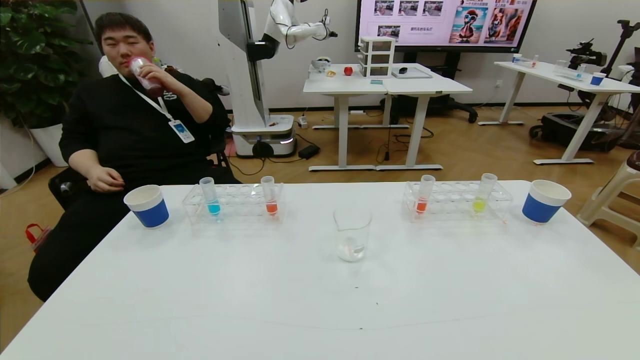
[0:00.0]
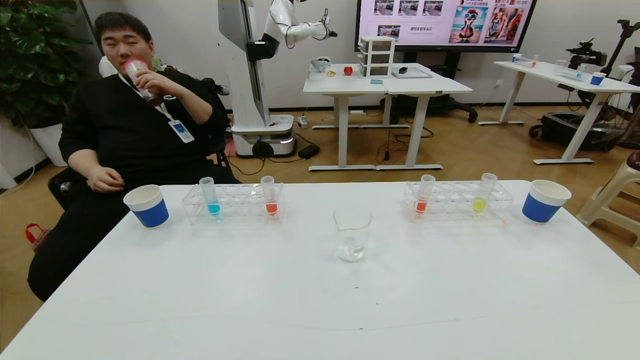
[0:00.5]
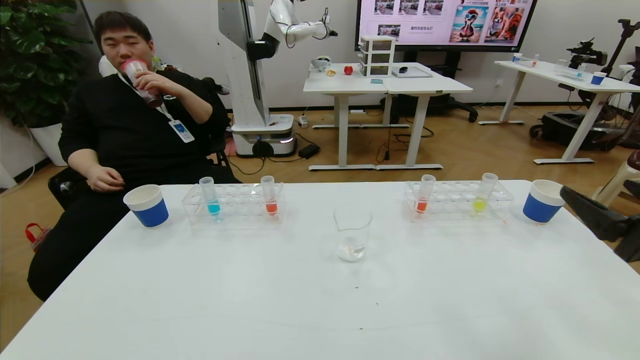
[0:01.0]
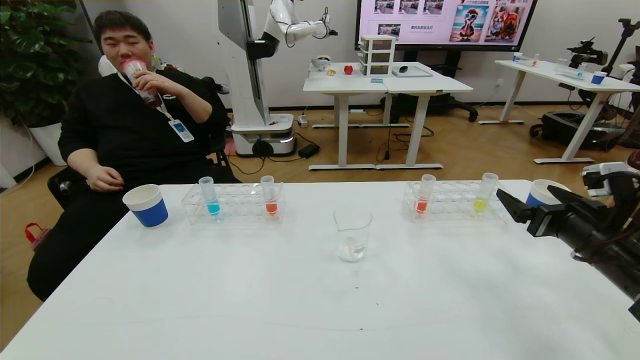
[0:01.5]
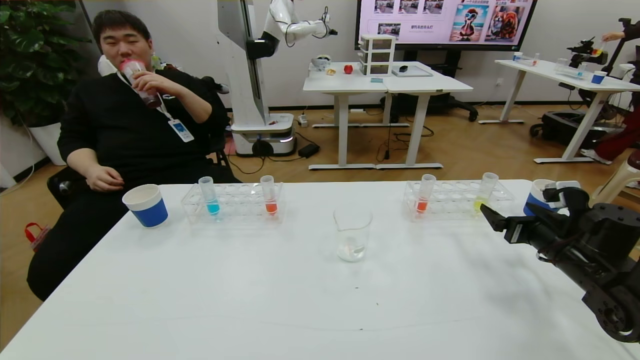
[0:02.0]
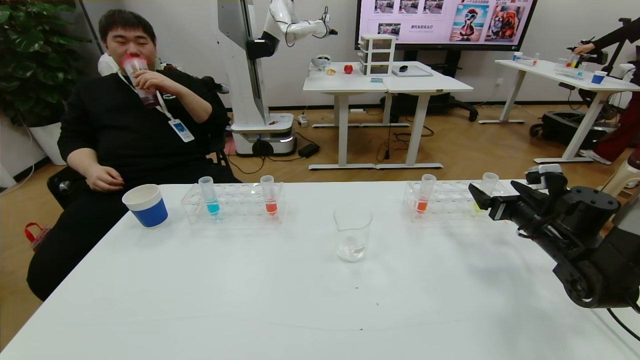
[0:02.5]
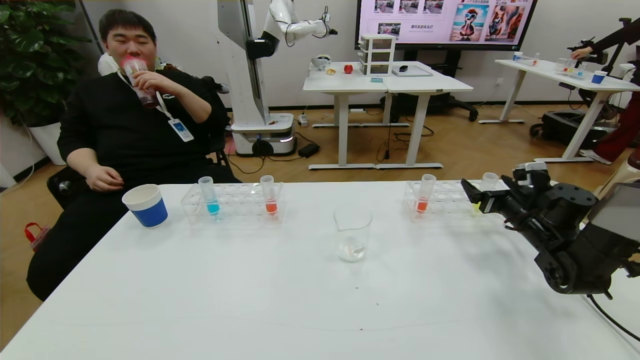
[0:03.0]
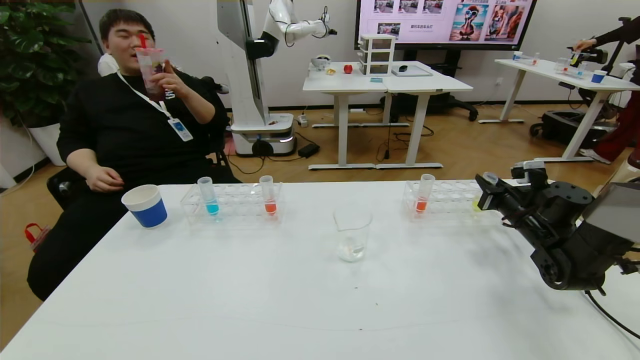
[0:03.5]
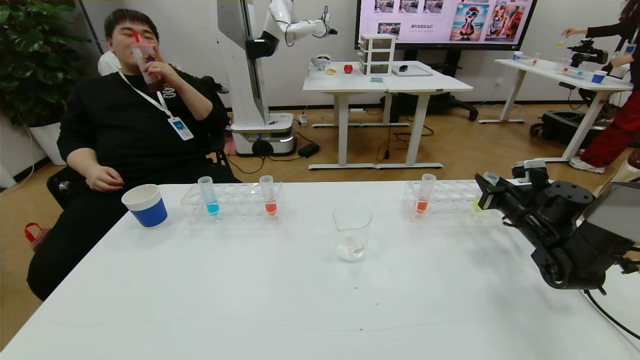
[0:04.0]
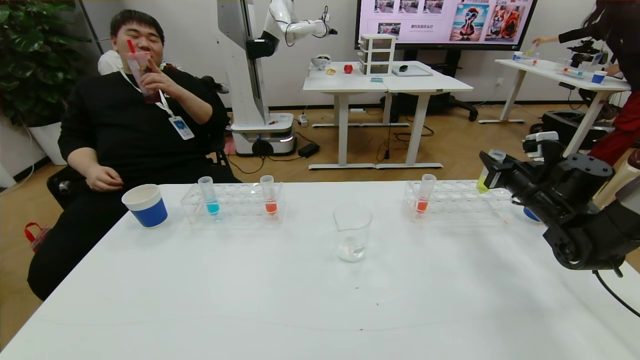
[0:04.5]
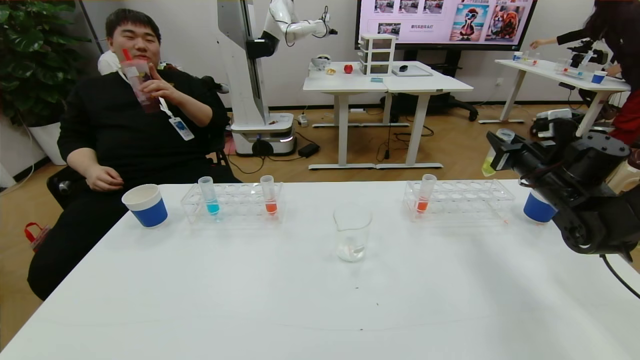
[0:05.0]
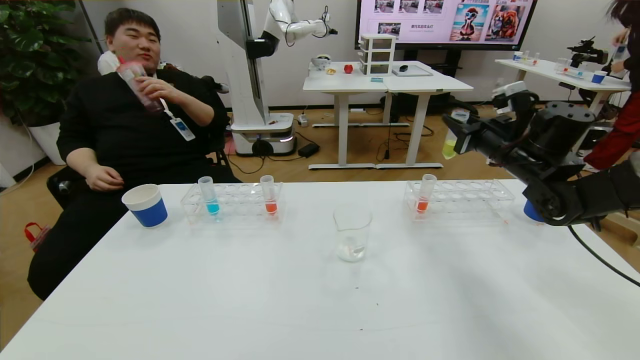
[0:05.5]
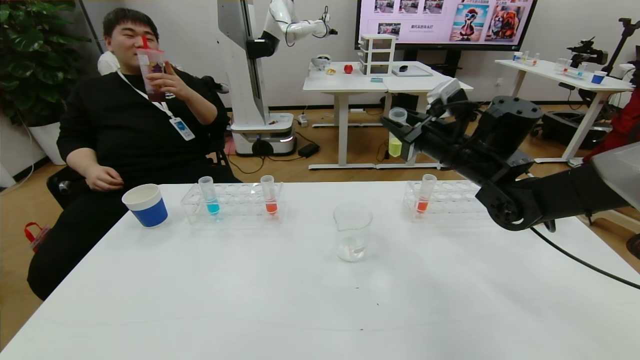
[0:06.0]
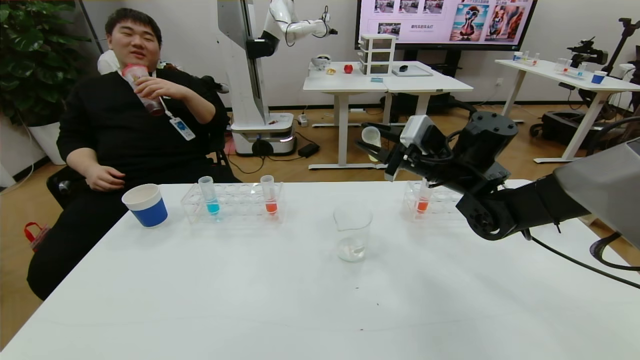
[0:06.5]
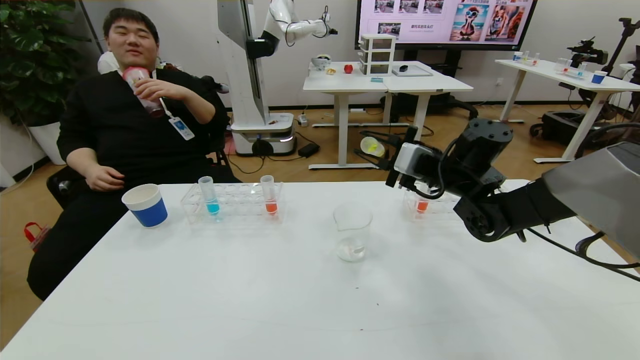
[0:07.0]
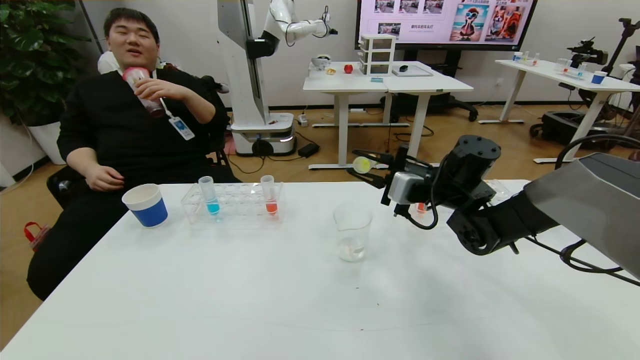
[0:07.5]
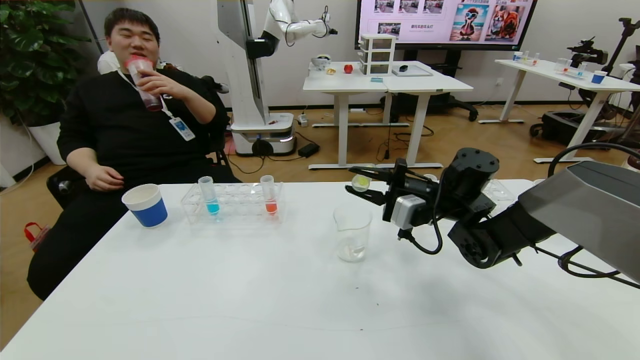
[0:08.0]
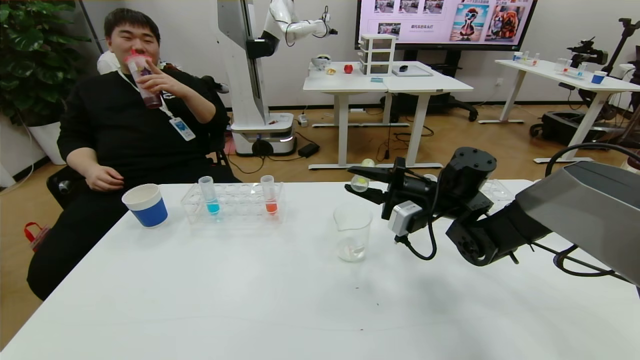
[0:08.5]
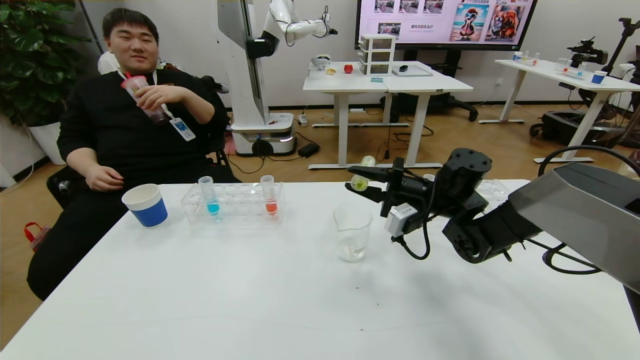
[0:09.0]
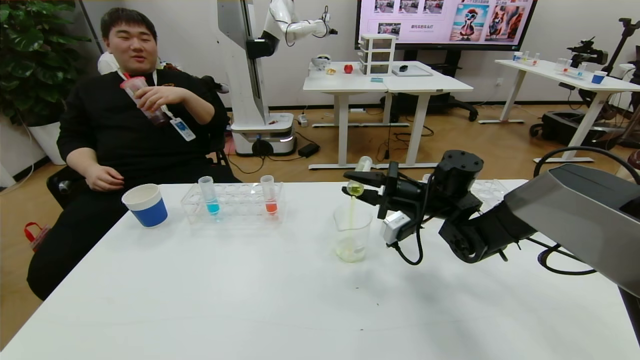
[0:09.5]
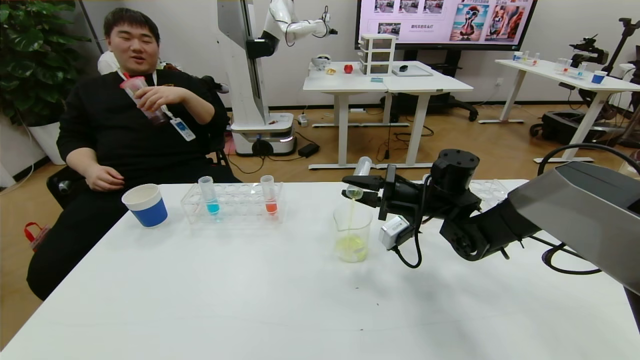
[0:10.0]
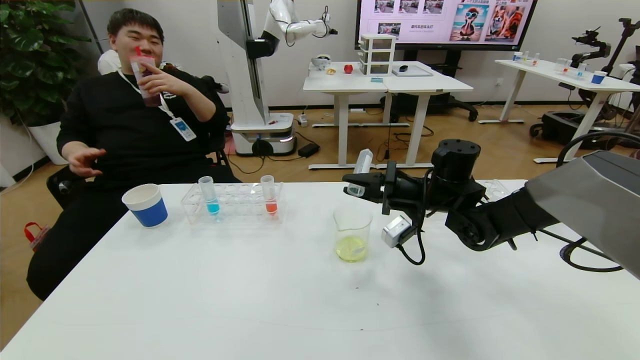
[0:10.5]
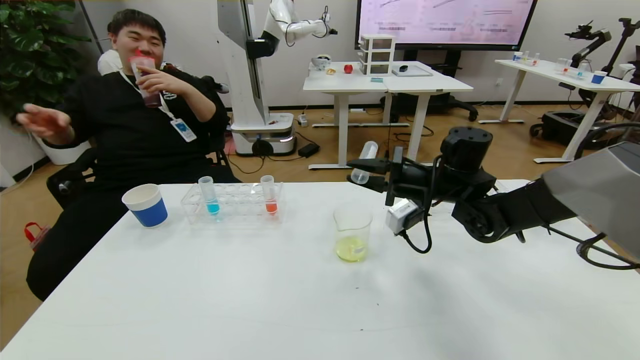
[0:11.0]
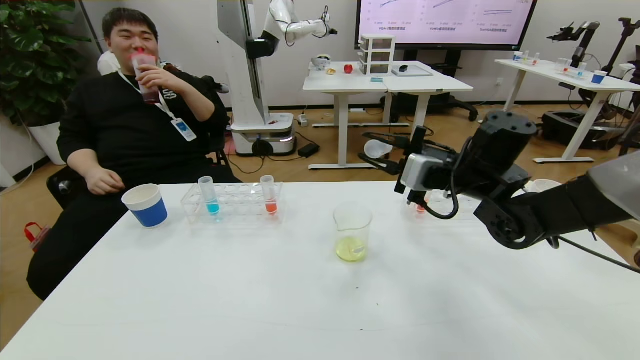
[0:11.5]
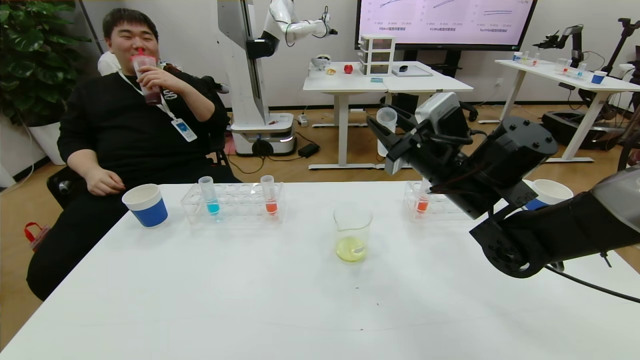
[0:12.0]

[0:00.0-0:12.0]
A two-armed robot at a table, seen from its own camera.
Task of the whole recording: pick up the test tube with yellow pigment and the test tube with blue pigment by grippers and pour them into the beaker.
0:00.0 to 0:02.0: The right gripper goes approximately 35 cm forward.
0:02.0 to 0:04.0: The right gripper heads forward, covering approximately 10 cm, and closes its fingers.
0:04.0 to 0:06.0: The right gripper moves to the left and upward, roughly 25 cm.
0:06.0 to 0:08.0: The right gripper heads downward, covering approximately 10 cm.
0:10.0 to 0:12.0: The right gripper is displaced upward and backward by approximately 10 cm.

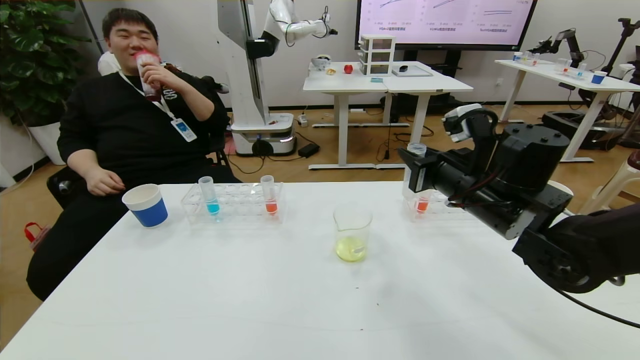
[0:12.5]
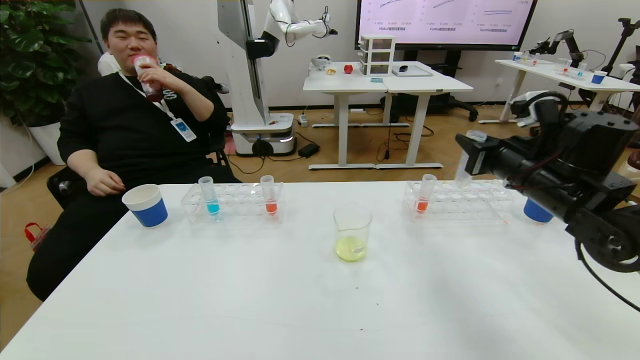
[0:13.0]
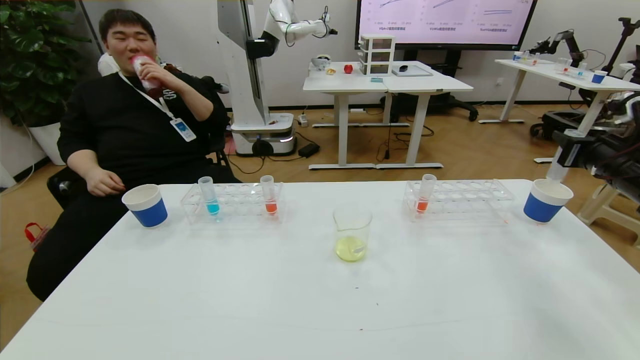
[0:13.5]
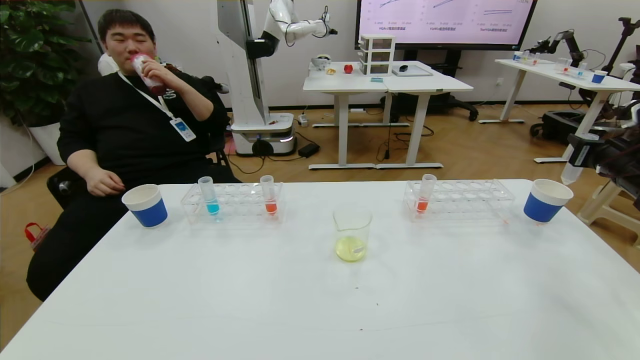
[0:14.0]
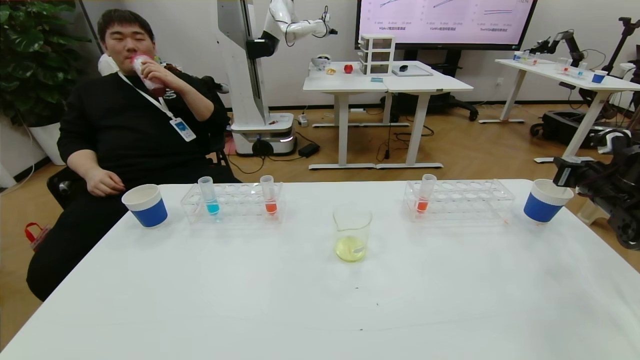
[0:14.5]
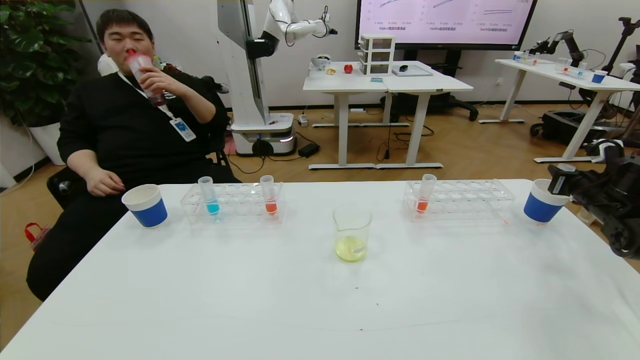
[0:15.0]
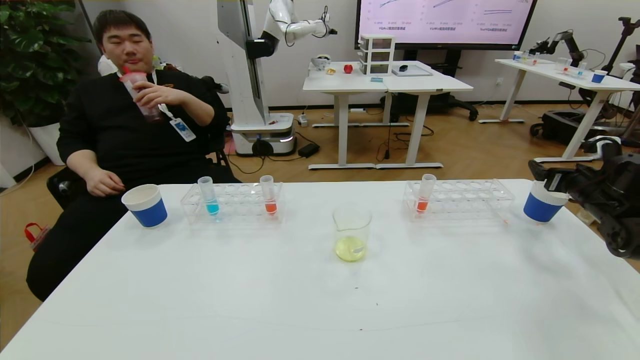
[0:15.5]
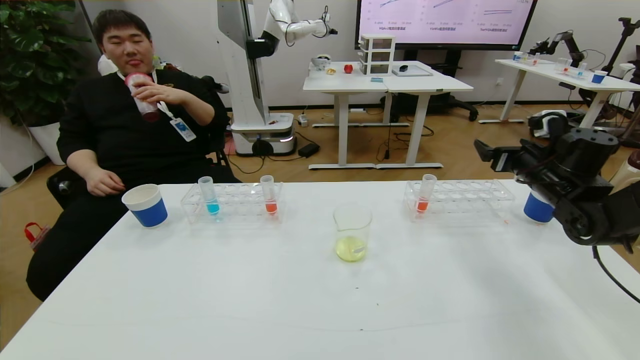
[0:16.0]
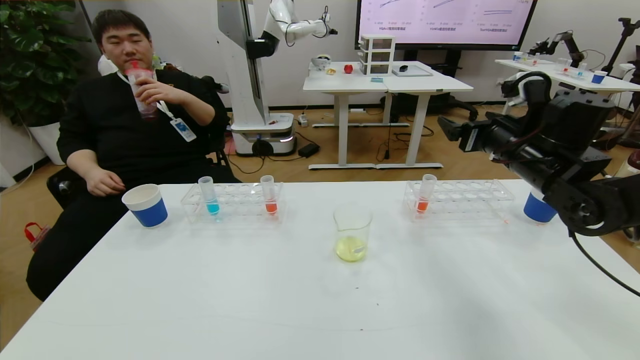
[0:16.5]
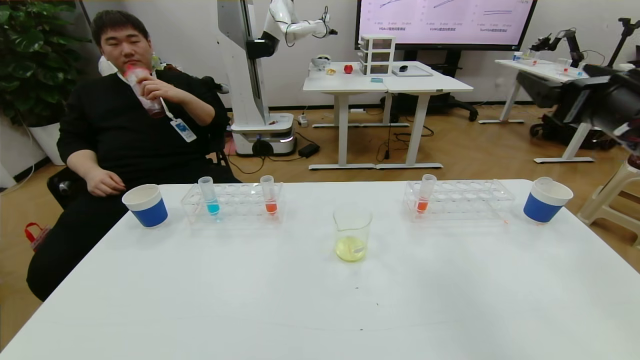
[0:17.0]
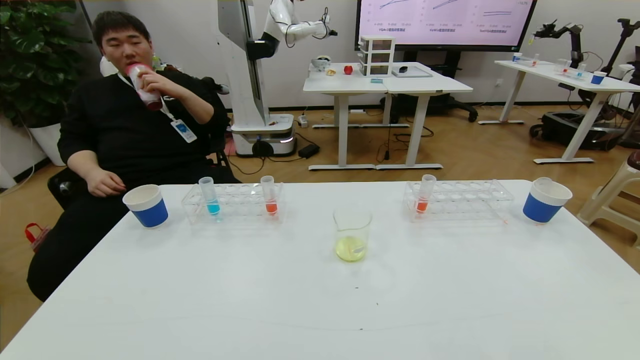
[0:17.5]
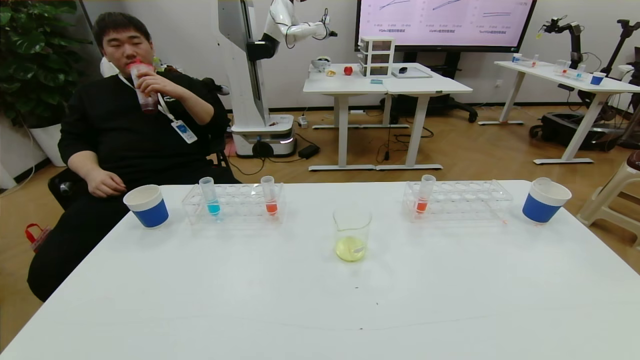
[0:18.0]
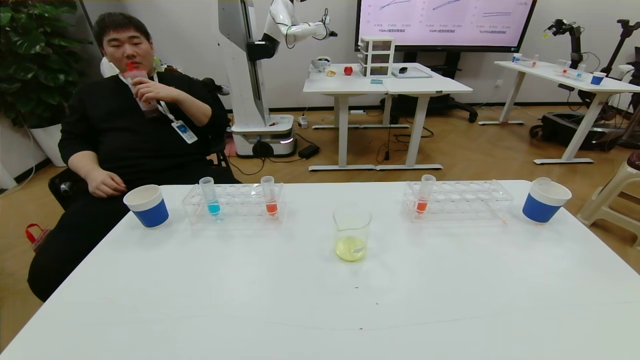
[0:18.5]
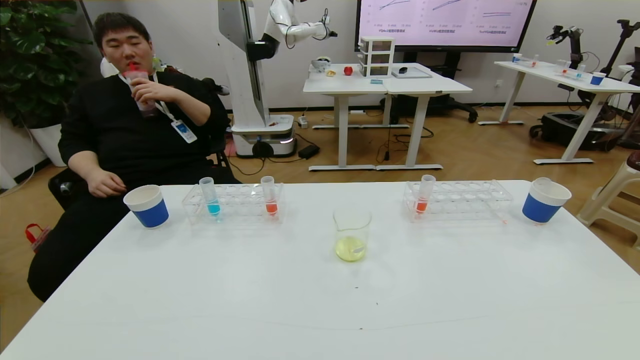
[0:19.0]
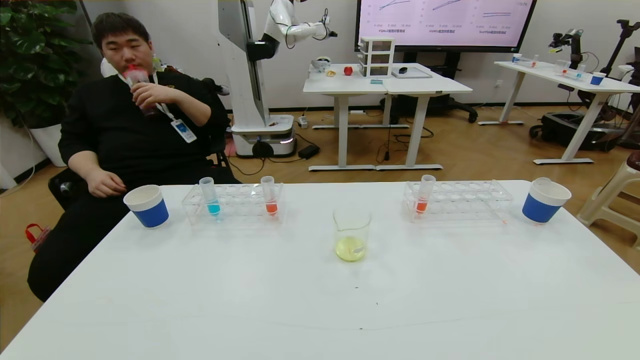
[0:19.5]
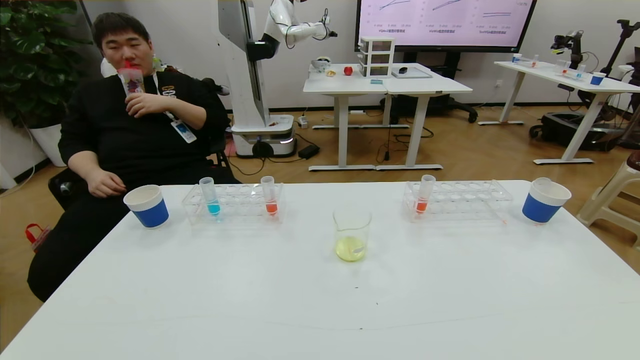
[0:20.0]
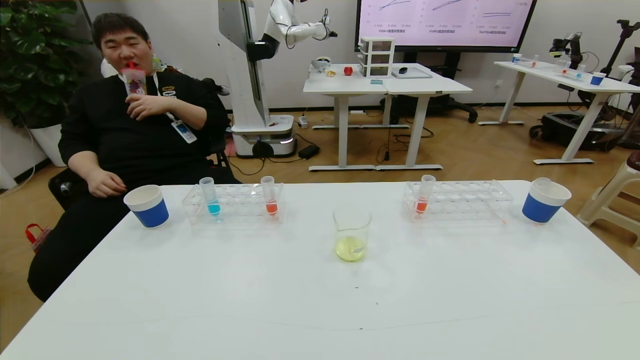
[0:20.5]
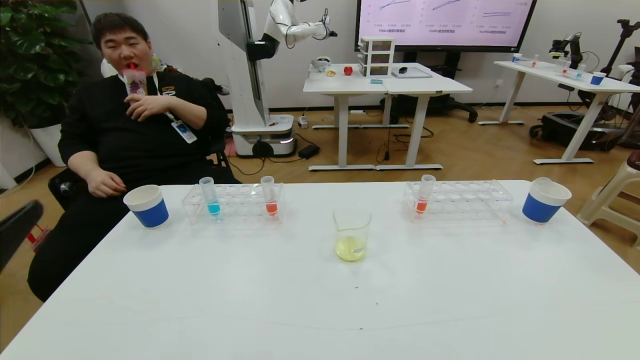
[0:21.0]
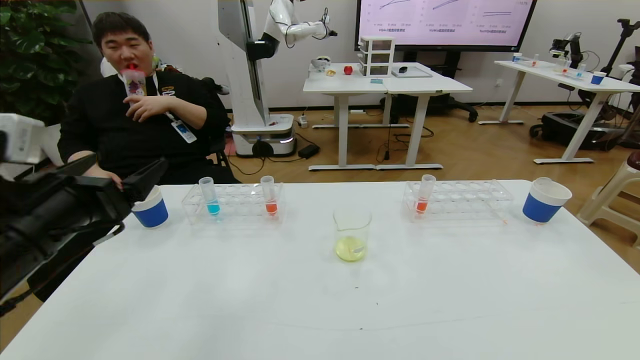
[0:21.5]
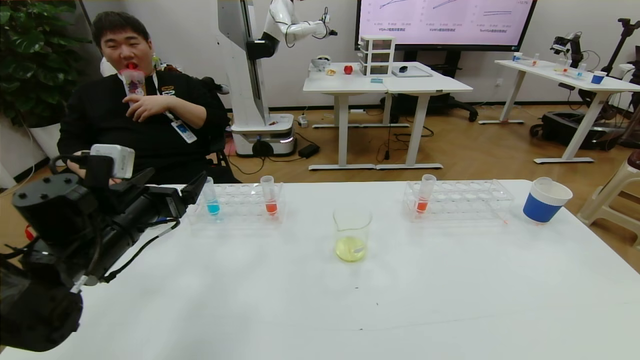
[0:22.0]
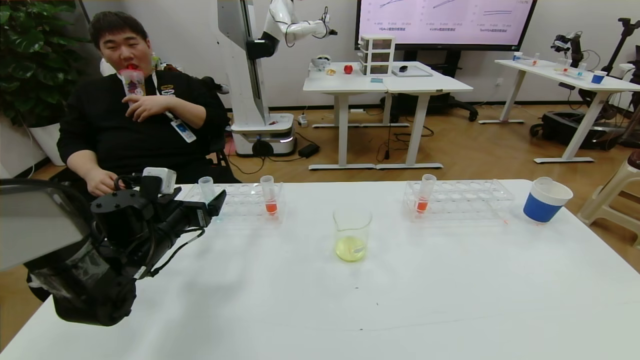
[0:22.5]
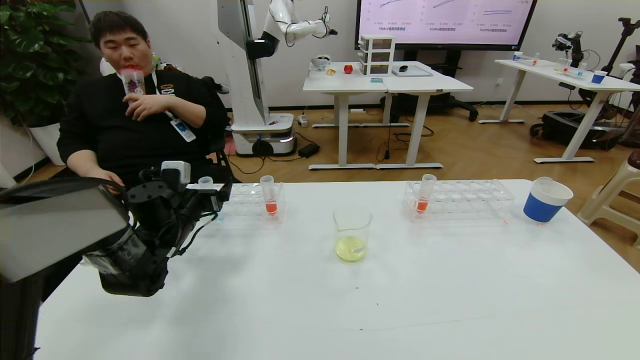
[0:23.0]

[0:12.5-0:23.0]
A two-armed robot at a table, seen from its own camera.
Task of the whole recording: pick up the test tube with yellow pigment and the test tube with blue pigment by grippers and pour them into the beaker.
Step, 0:12.5 to 0:19.5: Pour the yellow reagent into the graduated cylinder and place the test tube into the paper cup.
0:12.5 to 0:14.5: The right gripper is displaced to the right by about 30 cm.
0:14.5 to 0:16.5: The right gripper heads to the left and upward, covering roughly 25 cm, and opens.
0:16.5 to 0:19.0: The right gripper travels backward by about 40 cm.
0:19.0 to 0:21.0: The left gripper is displaced upward and forward by approximately 20 cm.
0:21.0 to 0:23.0: The left gripper shifts some 35 cm forward and downward.
